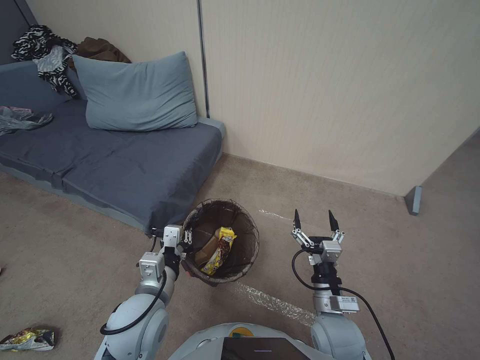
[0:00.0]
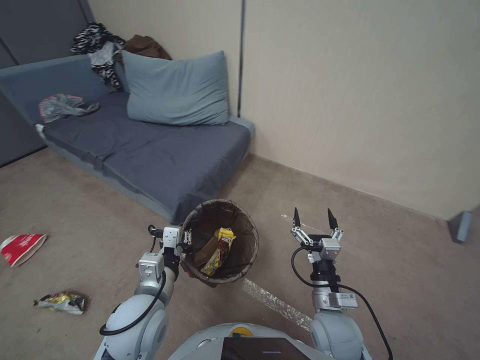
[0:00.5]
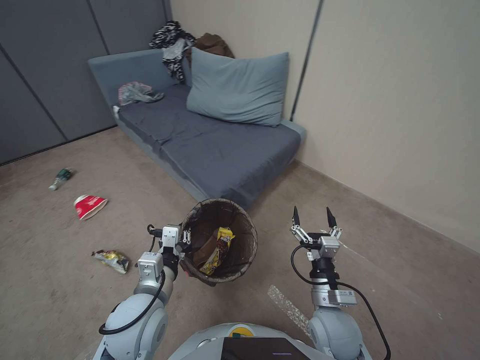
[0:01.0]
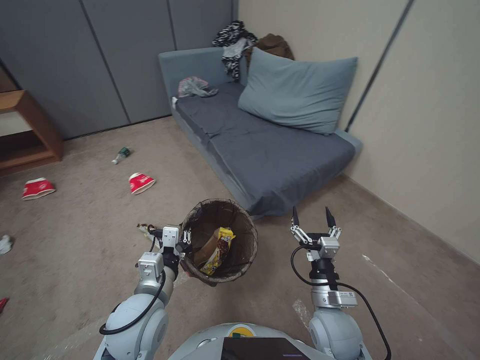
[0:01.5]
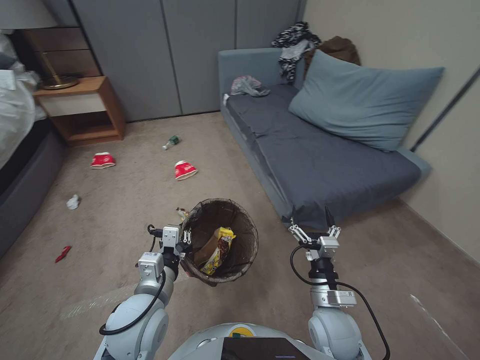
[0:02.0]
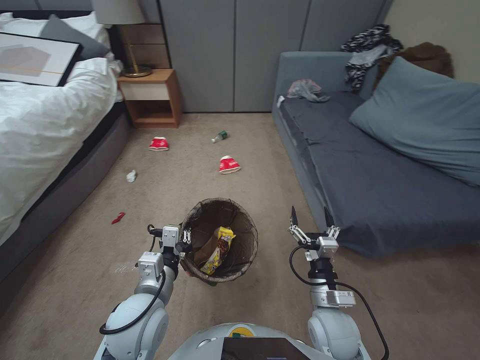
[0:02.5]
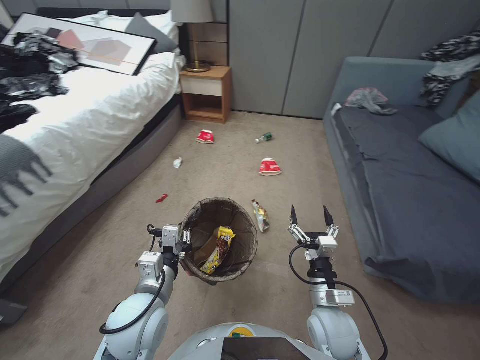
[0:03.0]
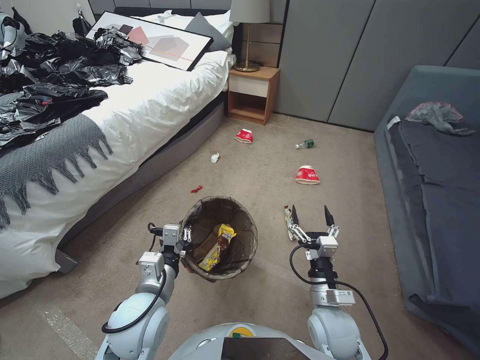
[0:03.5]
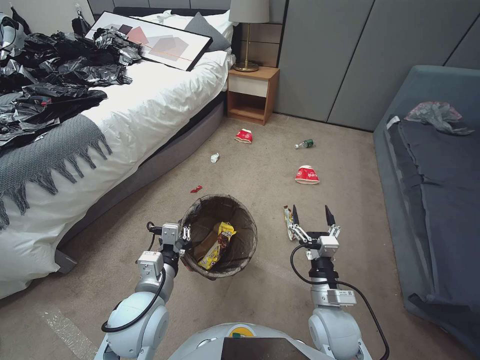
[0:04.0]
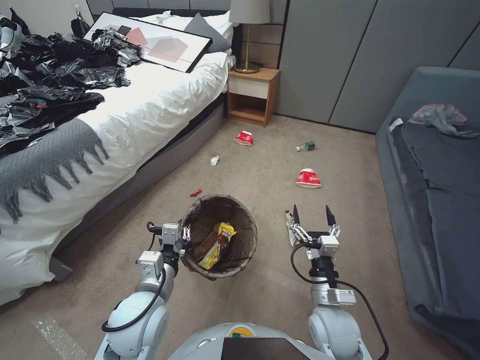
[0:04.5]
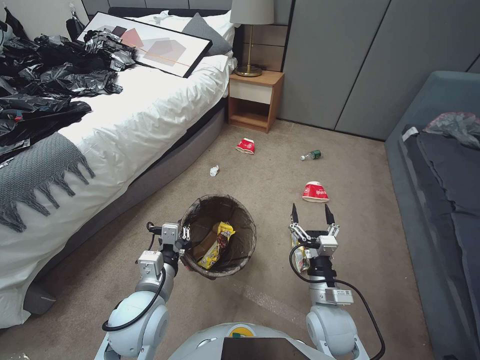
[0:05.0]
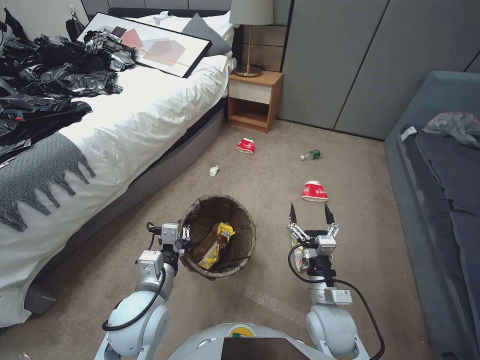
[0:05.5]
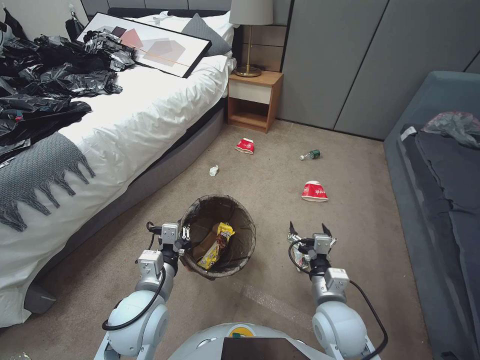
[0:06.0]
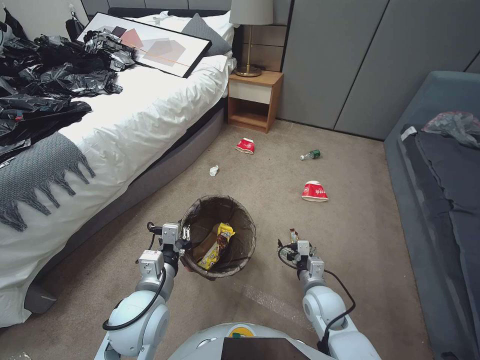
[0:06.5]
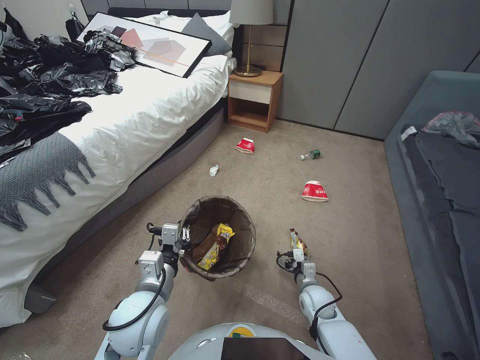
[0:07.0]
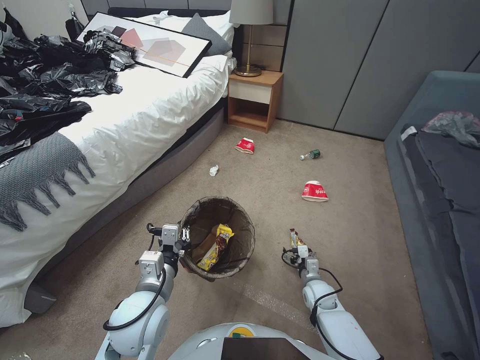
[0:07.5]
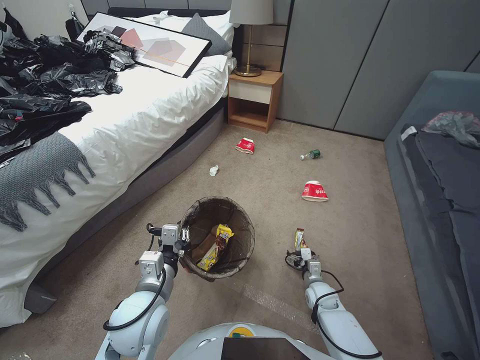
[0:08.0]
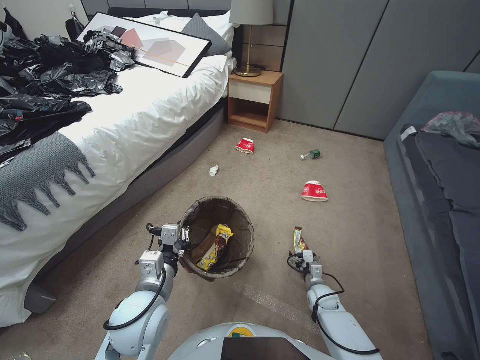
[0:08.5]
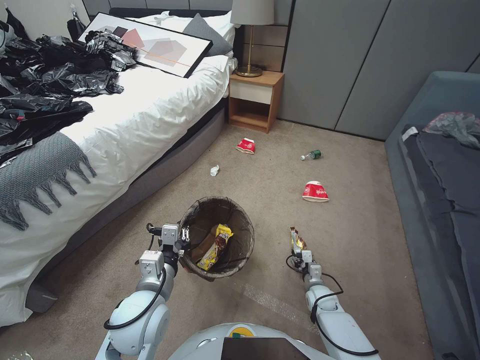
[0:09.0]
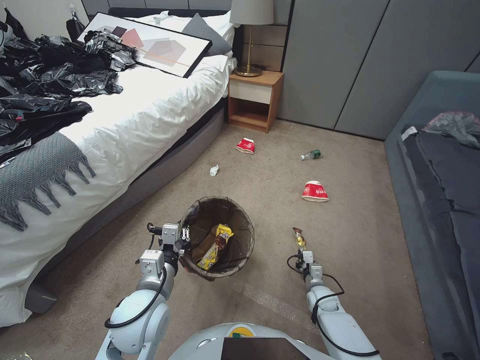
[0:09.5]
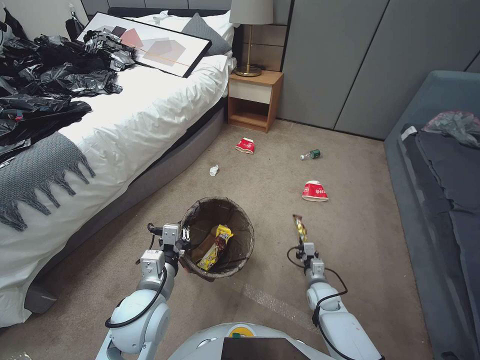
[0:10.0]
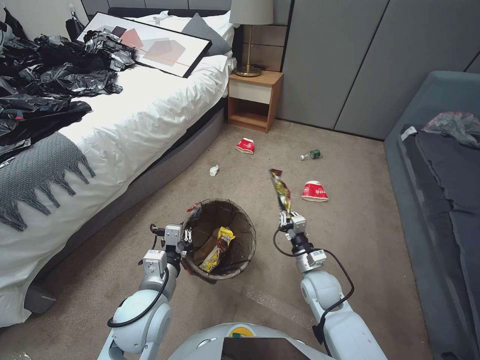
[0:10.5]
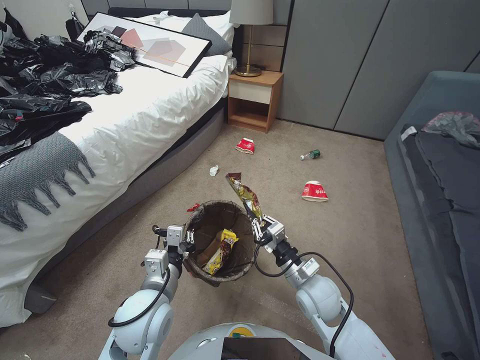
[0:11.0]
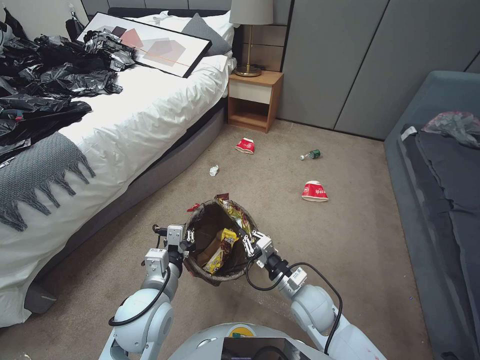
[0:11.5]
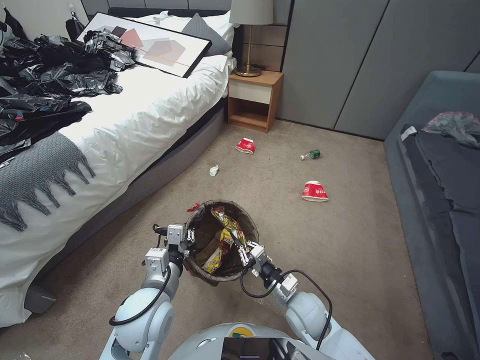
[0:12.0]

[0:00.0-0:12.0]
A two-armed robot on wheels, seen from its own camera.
Task of the whole recording: Pick up the trash bin, then pick up the garbage from the floor and place it into the trash bin.
0:06.0 to 0:08.0: The right gripper moves downward and forward, approximately 25 cm.
0:08.0 to 0:10.0: The right gripper closes its fingers.
0:10.0 to 0:12.0: The right gripper travels upward and to the left by approximately 20 cm.

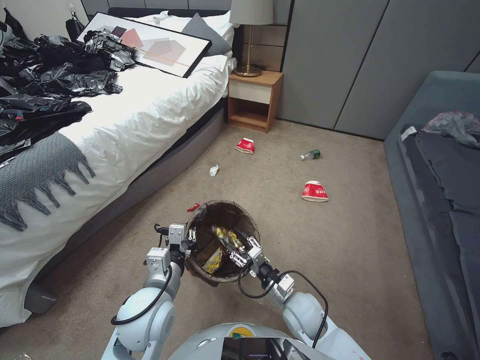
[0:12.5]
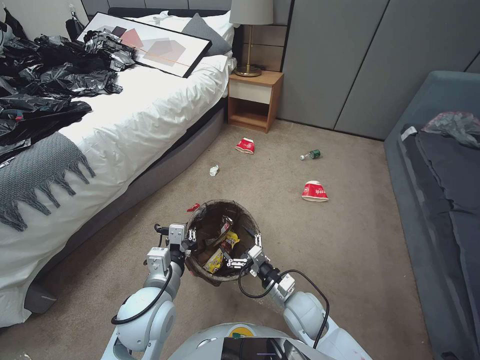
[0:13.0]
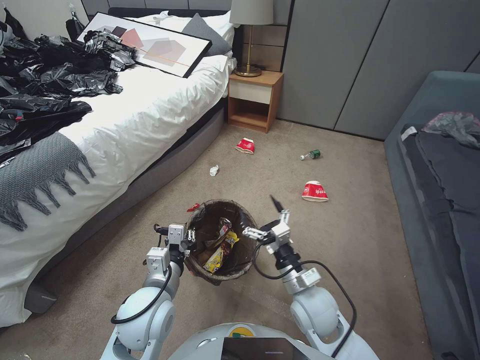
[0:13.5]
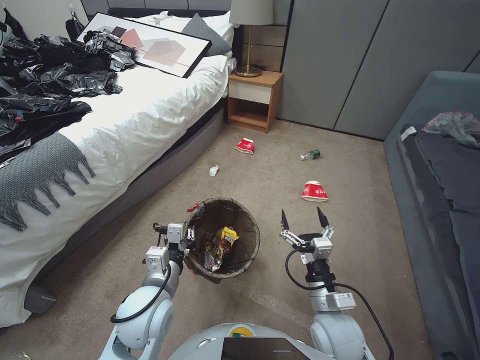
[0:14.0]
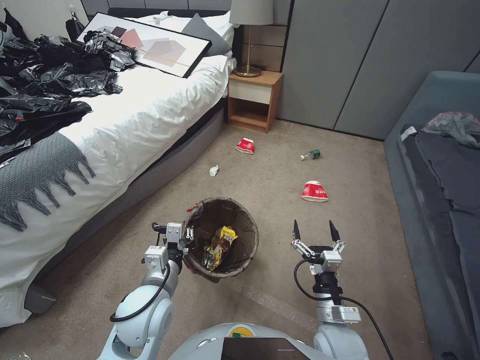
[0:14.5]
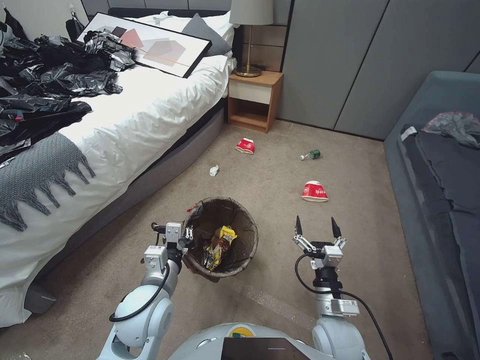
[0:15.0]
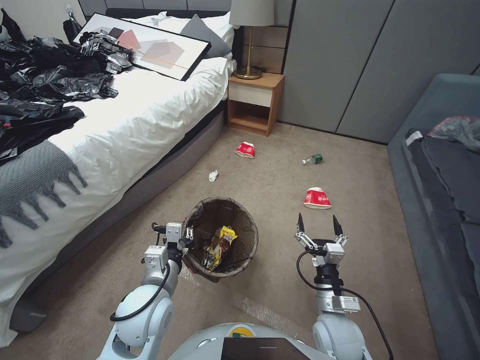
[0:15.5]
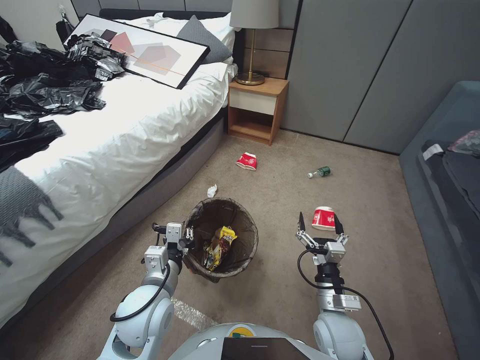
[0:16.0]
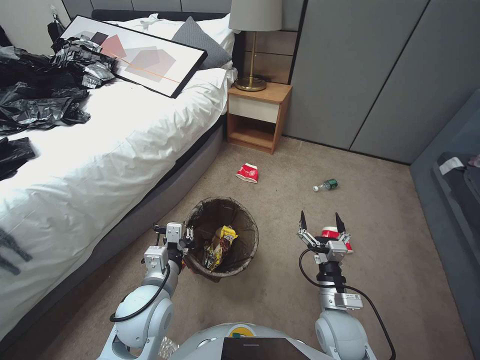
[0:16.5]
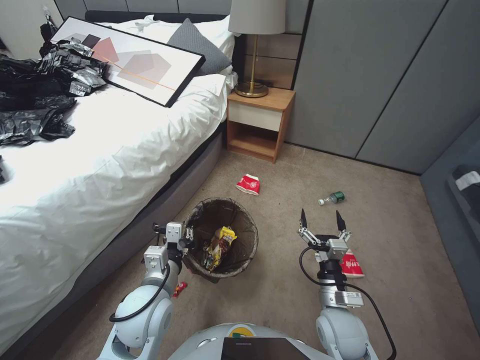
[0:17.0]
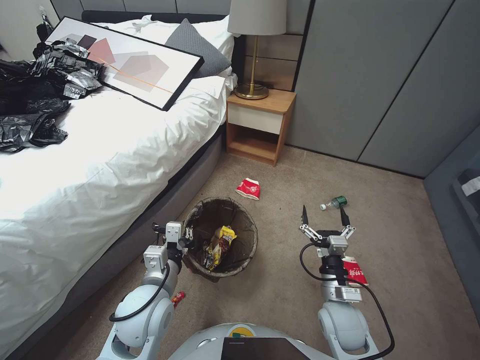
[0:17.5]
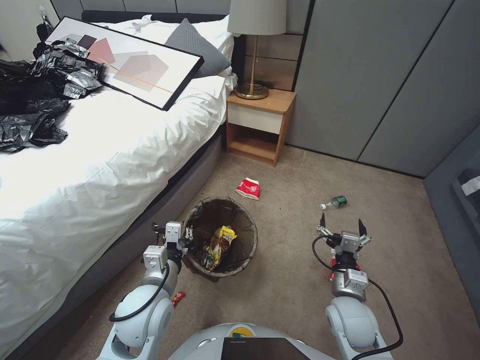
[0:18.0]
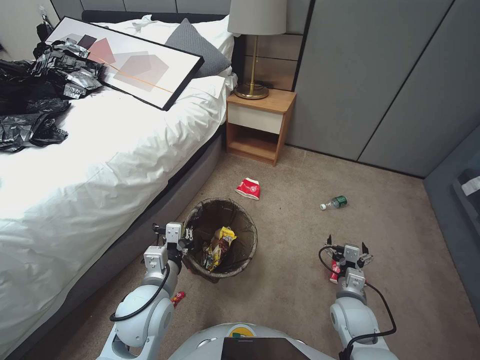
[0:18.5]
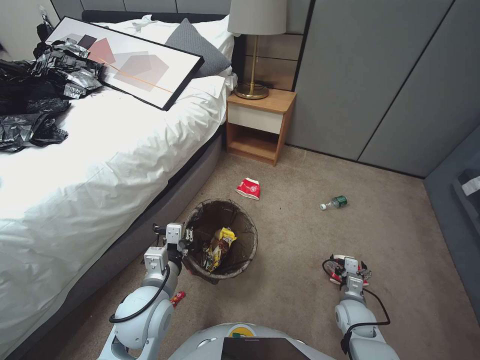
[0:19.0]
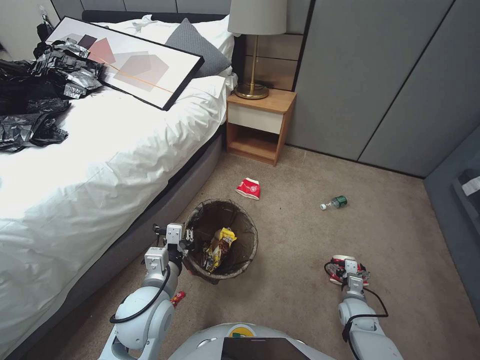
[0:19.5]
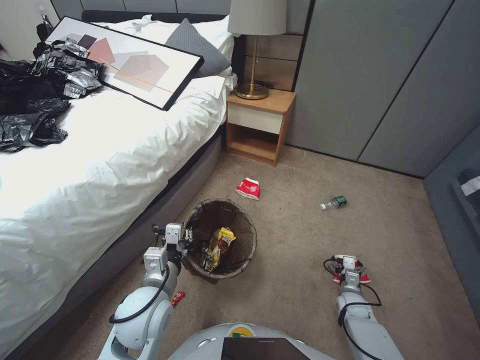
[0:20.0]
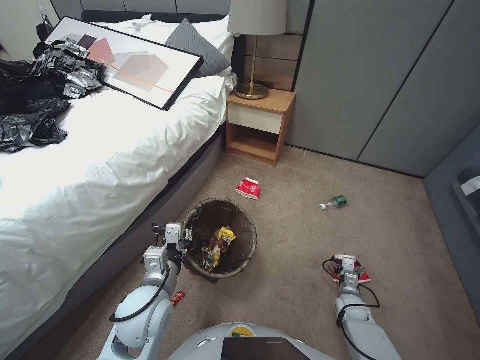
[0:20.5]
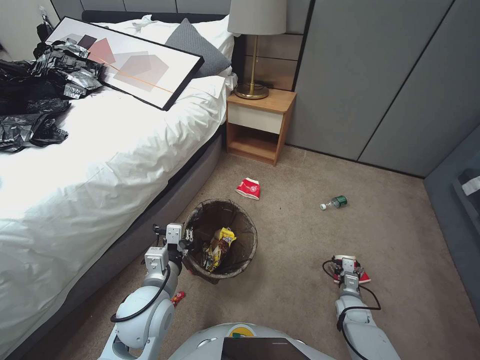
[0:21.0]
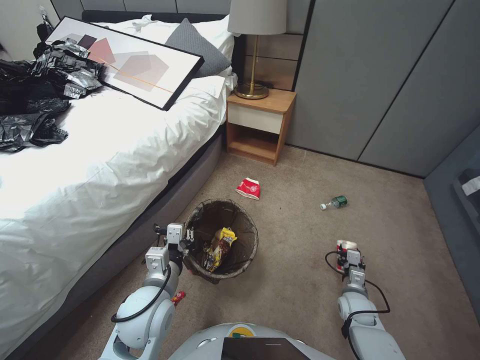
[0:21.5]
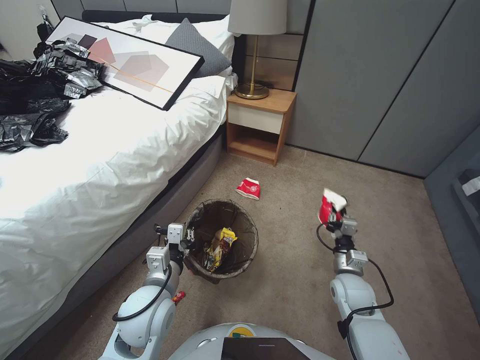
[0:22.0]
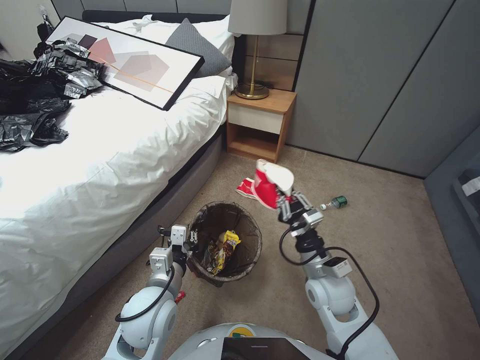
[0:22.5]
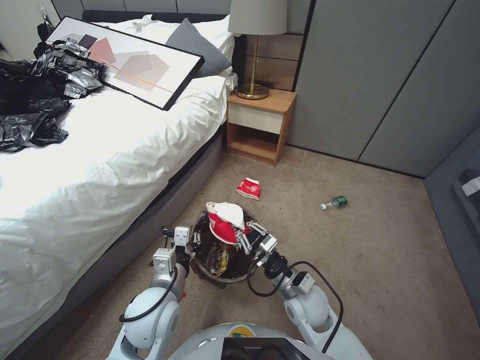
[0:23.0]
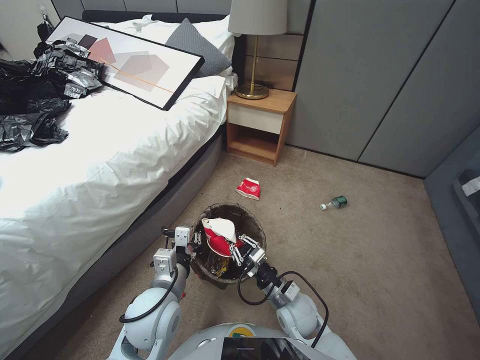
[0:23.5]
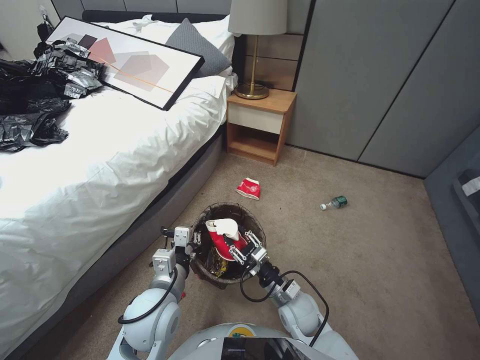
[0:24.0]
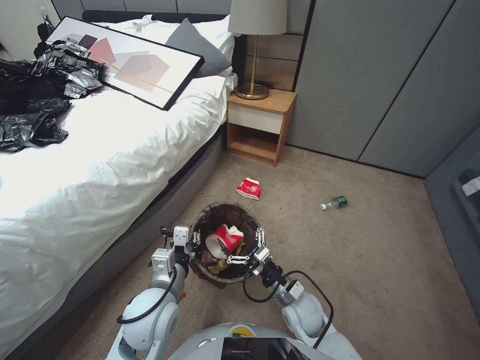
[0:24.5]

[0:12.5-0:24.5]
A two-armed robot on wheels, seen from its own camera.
Task of the whole recording: Pick up the trash bin, then pick up the garbage from the floor and place it into the trash bin.
0:12.5 to 0:14.5: The right gripper heads backward and to the right, covering about 10 cm, and opens.
0:16.5 to 0:18.5: The right gripper goes roughly 5 cm to the right.
0:18.5 to 0:20.5: The right gripper moves downward and to the right, approximately 20 cm.
0:20.5 to 0:22.5: The right gripper shifts some 30 cm upward and to the left, and closes.
0:22.5 to 0:24.5: The right gripper moves downward and to the left, some 10 cm, and opens its fingers.

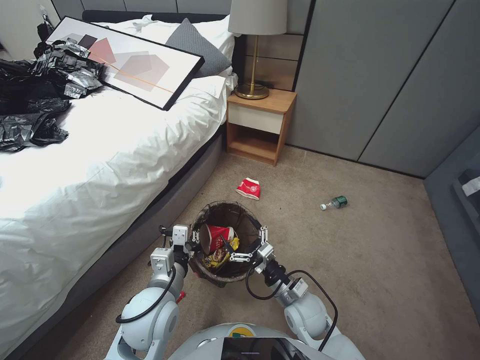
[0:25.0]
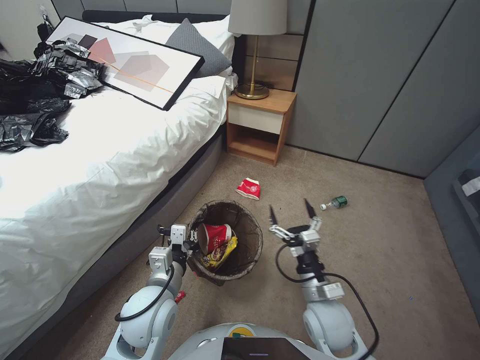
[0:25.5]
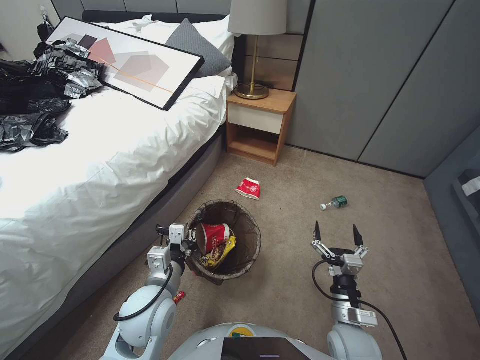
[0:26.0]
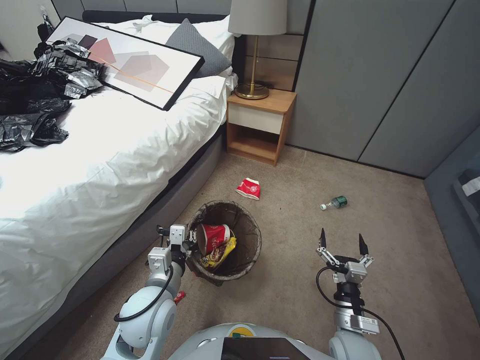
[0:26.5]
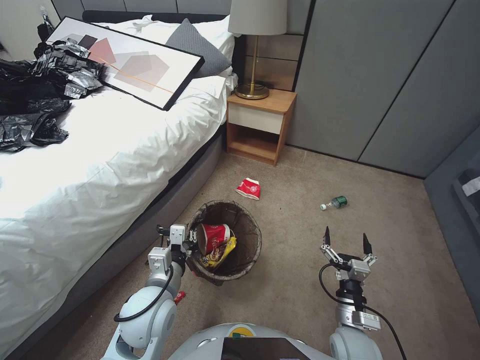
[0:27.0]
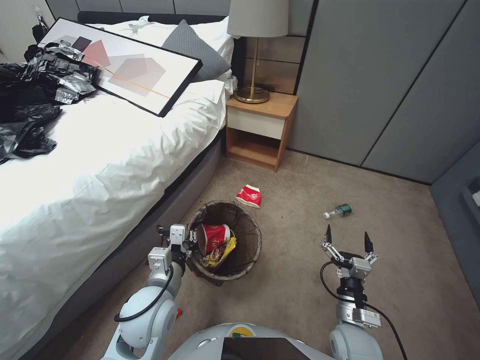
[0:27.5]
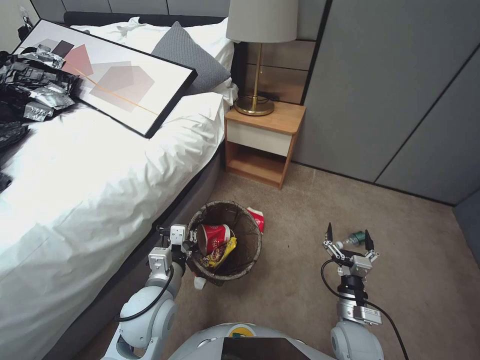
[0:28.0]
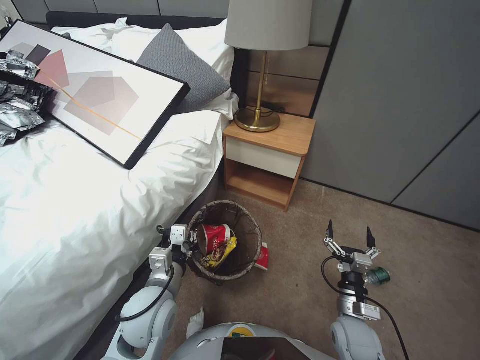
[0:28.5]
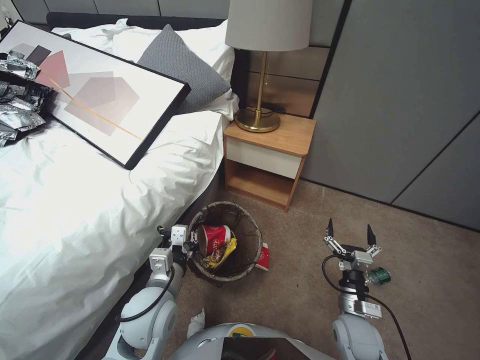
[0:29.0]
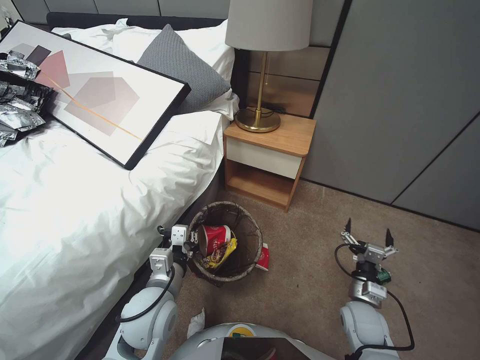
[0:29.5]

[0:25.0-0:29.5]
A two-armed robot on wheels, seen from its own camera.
Task of the whole recording: Pick up the trash bin, then pick up the garbage from the floor and place it into the trash bin.
0:25.0 to 0:27.0: The right gripper is displaced to the right and backward by approximately 10 cm.
0:27.0 to 0:29.5: The right gripper moves about 5 cm.
